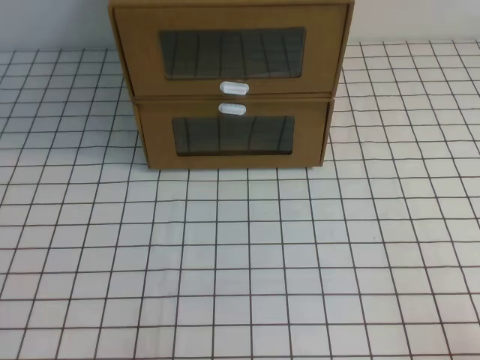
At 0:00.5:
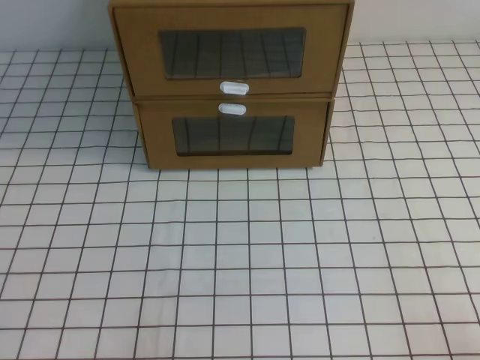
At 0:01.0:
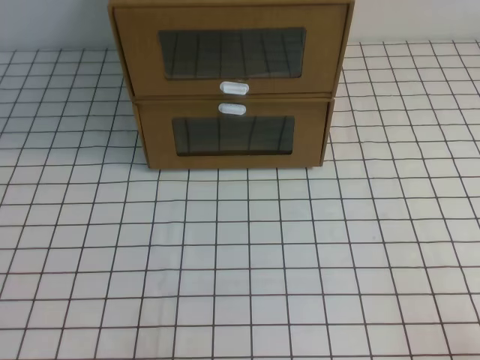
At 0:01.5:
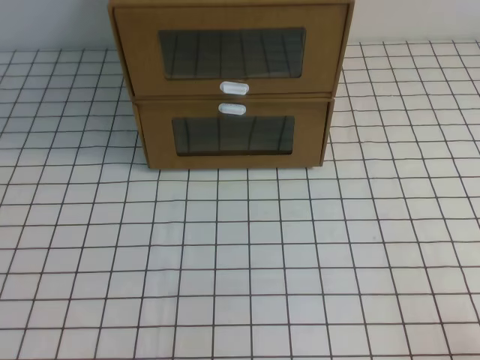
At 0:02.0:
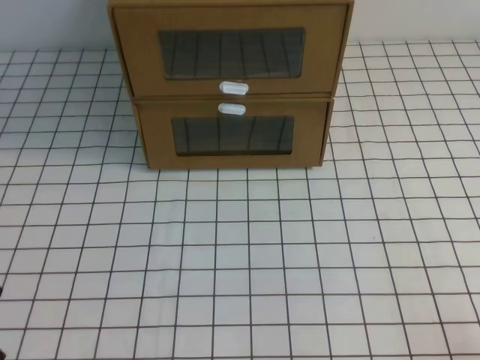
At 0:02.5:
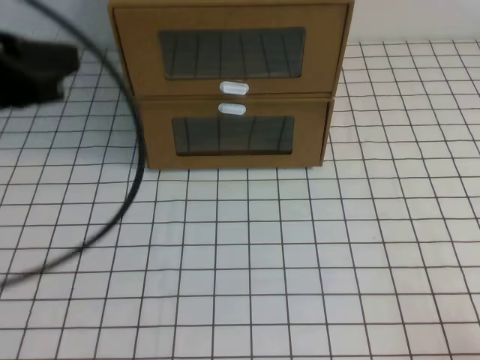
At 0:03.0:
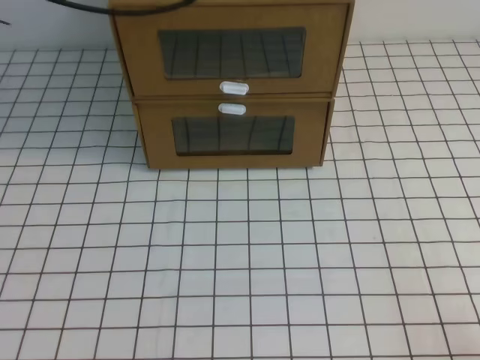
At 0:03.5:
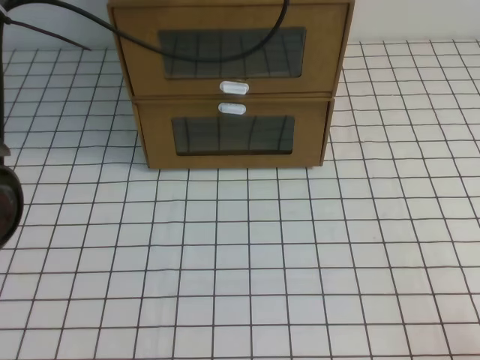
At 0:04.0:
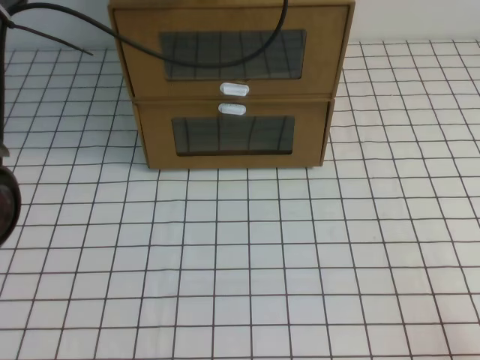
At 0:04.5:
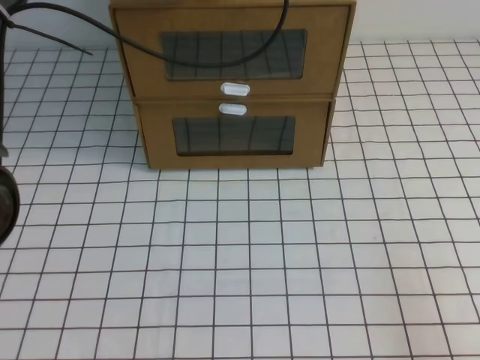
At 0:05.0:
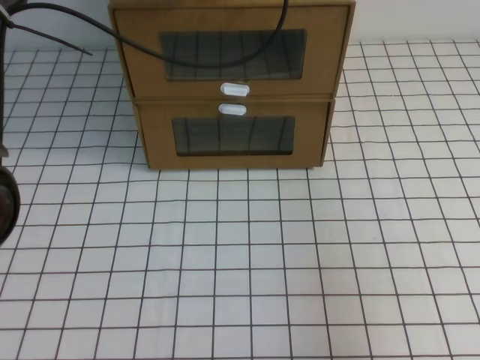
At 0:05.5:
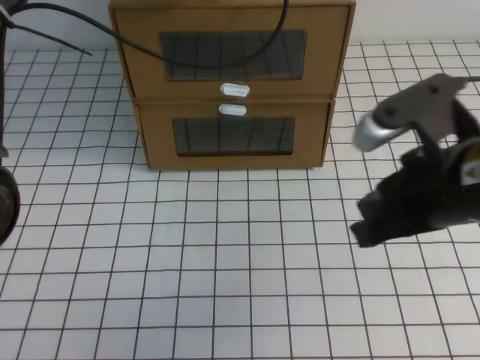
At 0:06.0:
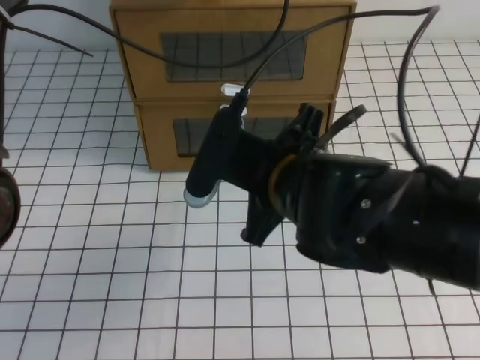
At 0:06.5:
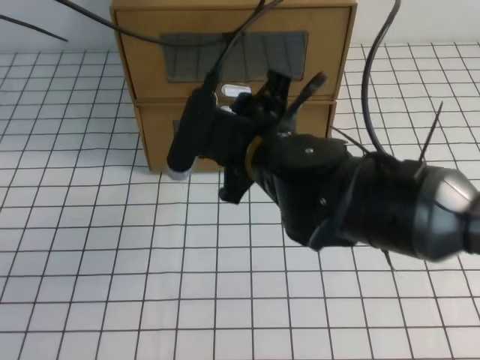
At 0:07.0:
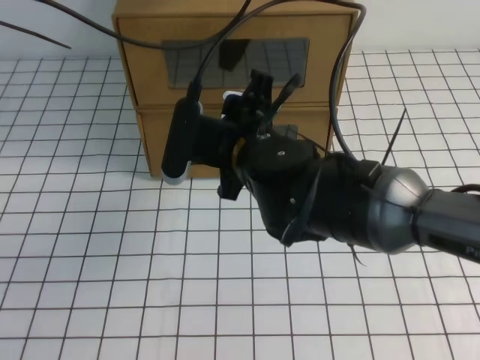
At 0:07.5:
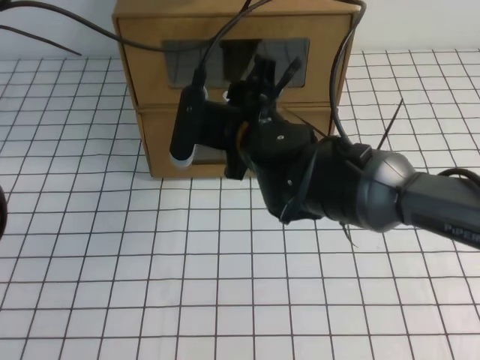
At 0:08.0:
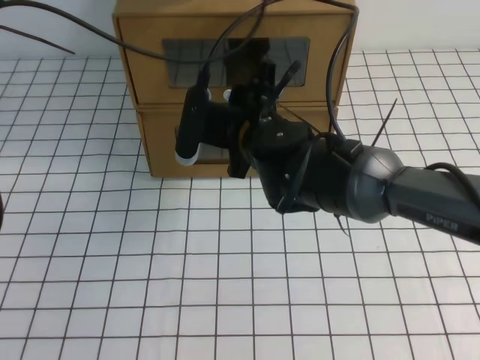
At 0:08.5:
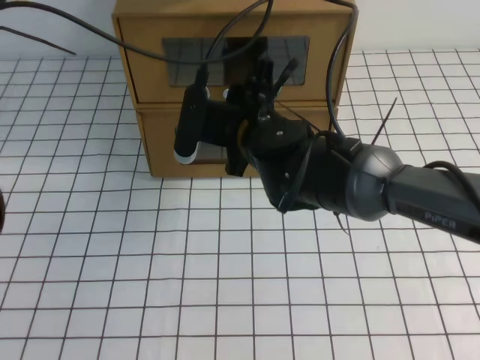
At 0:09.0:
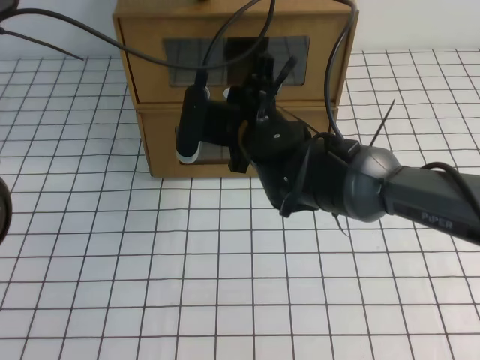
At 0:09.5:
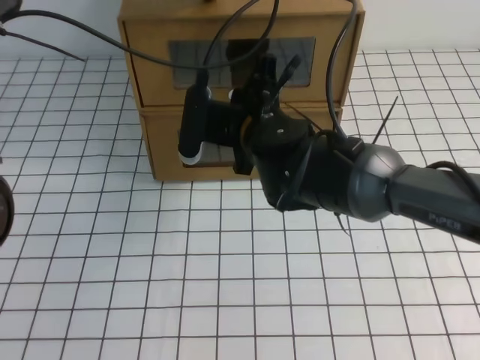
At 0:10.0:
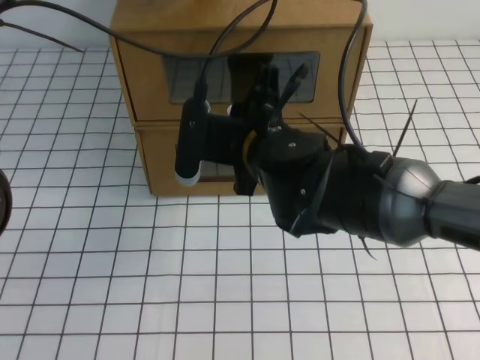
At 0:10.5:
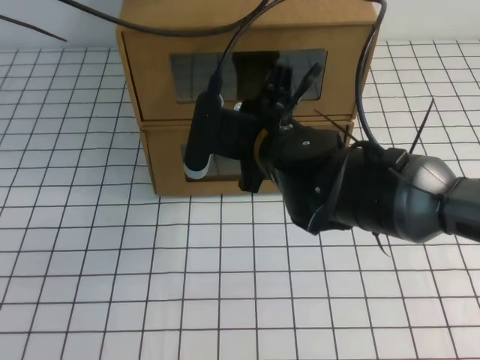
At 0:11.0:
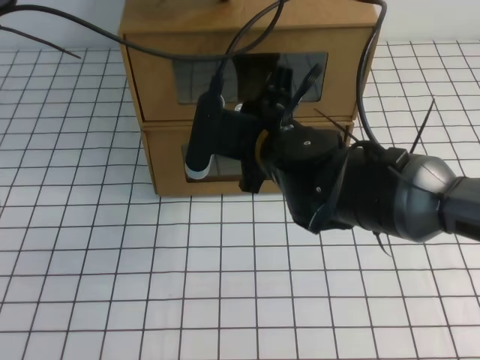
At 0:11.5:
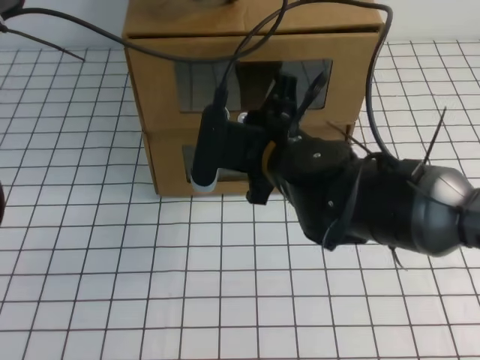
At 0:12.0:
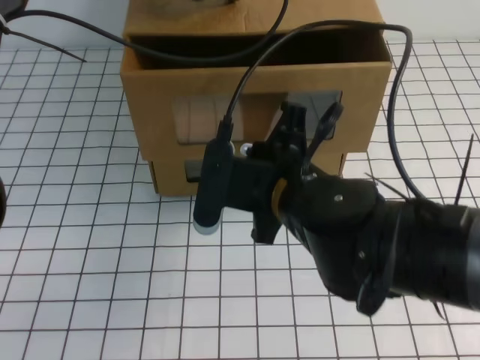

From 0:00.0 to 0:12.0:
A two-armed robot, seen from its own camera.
Task of the whole recording: open the shoebox on the white tablecloth.
From 0:02.0 to 0:04.0: The left gripper heads forward, upward and to the right, covering approximately 50 cm.
From 0:04.0 to 0:06.0: The right gripper is displaced to the left, forward and upward by roughly 35 cm.
From 0:06.0 to 0:08.0: The right gripper shifts roughly 15 cm forward and to the left, and opens its fingers.
From 0:08.0 to 0:10.0: The right gripper closes up.
From 0:10.0 to 0:12.0: The right gripper travels backward by some 5 cm.

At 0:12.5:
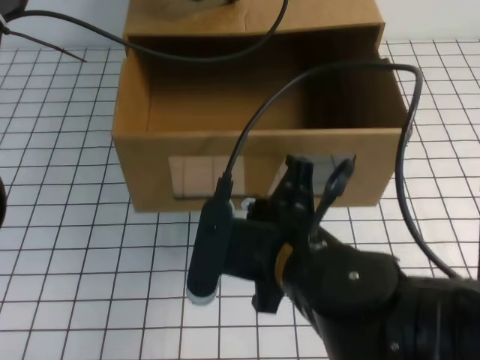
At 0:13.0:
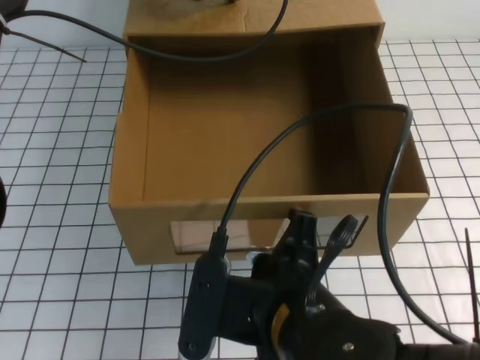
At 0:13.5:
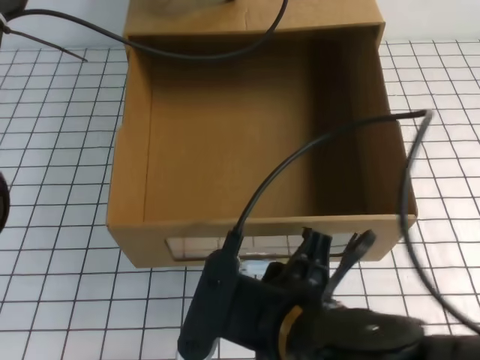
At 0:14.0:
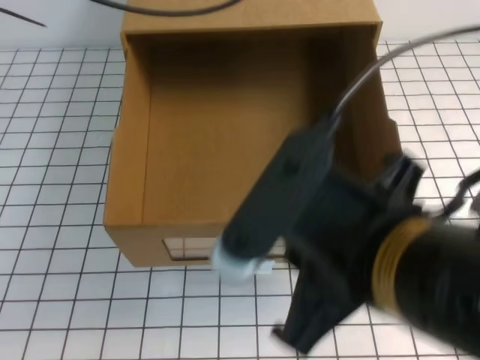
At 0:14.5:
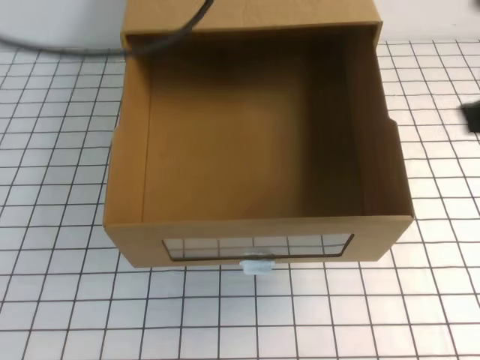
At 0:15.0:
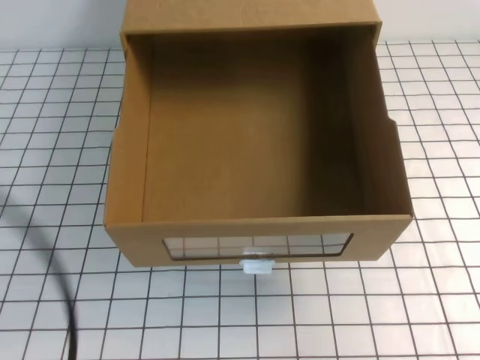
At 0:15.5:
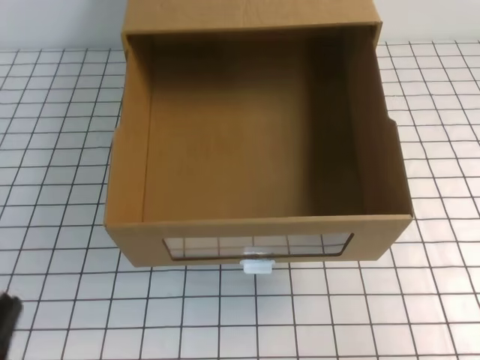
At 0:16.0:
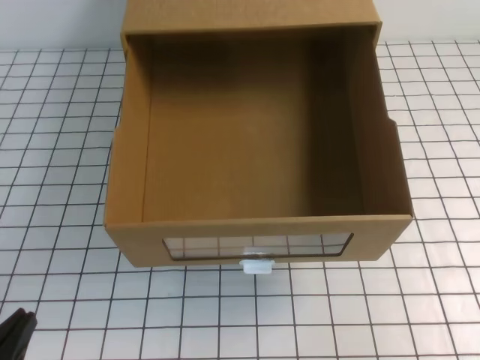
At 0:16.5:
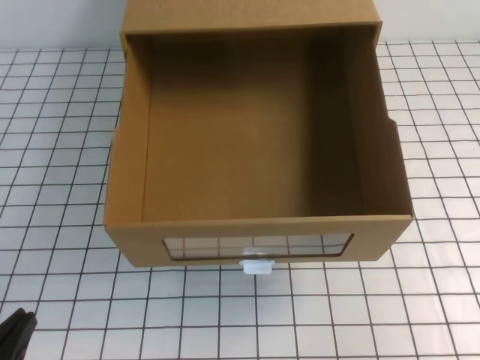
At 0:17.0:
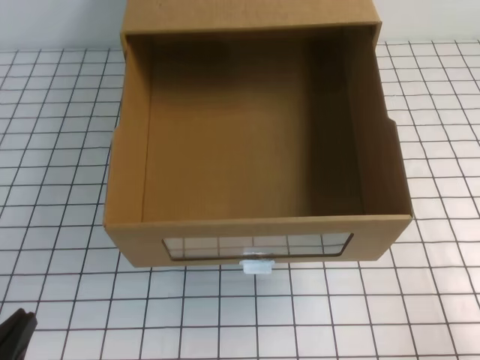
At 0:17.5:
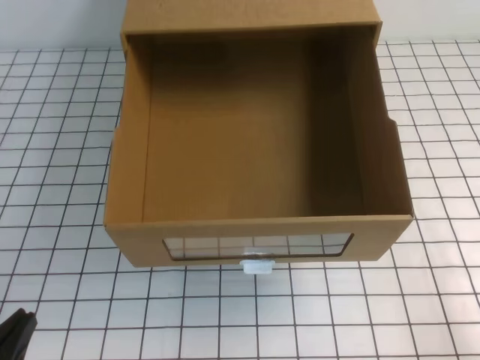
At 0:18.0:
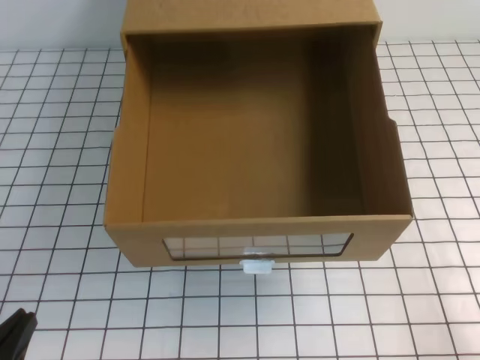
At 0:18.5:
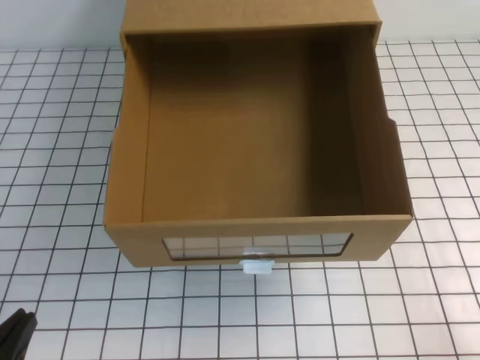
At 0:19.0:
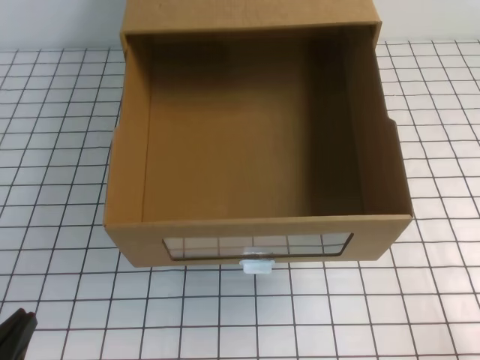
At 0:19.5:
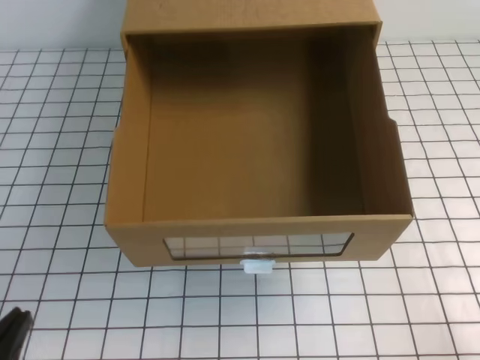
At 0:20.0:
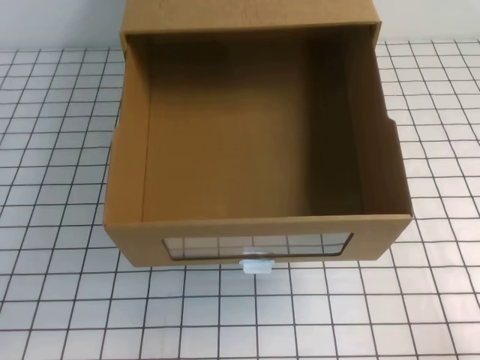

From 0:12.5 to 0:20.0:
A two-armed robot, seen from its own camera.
Task of the whole recording: open the shoebox on the white tablecloth.
Step, from 0:12.5 to 0:20.0: Open the shoe box.
From 0:12.5 to 0:14.5: The right gripper moves upward and to the right, approximately 20 cm, and opens, then closes again. The left gripper is displaced upward, backward and to the left by roughly 20 cm.
From 0:14.5 to 0:16.5: The right gripper shifts approximately 20 cm to the right, downward and backward. The left gripper travels downward and backward by roughly 40 cm.
From 0:16.5 to 0:18.0: The right gripper moves downward, approximately 10 cm.
From 0:18.0 to 0:20.0: The grippers move only a little.

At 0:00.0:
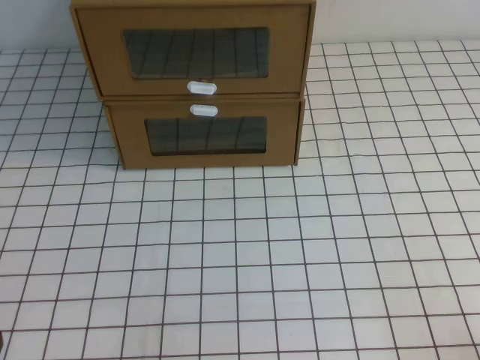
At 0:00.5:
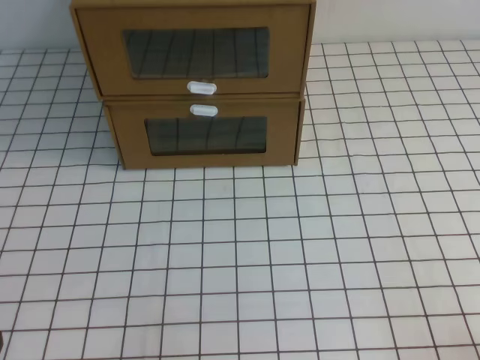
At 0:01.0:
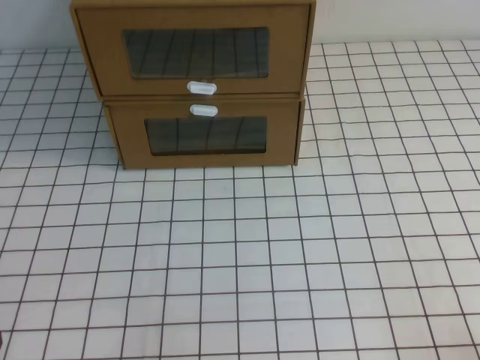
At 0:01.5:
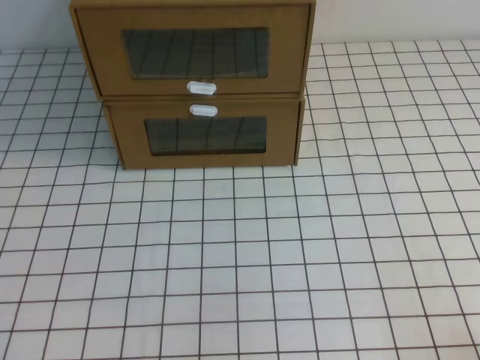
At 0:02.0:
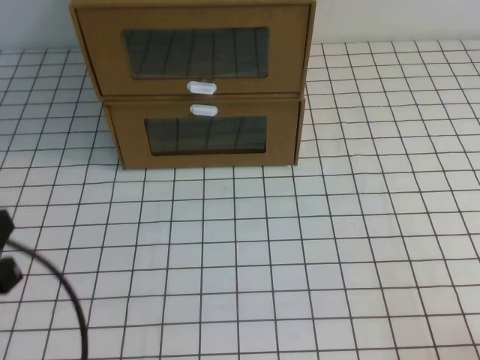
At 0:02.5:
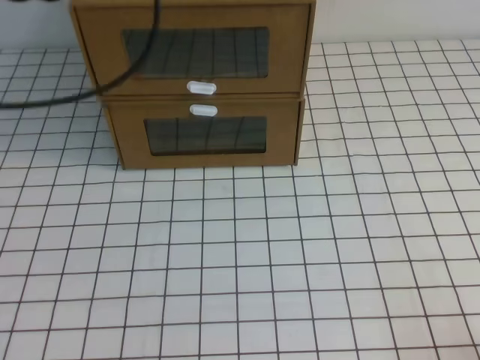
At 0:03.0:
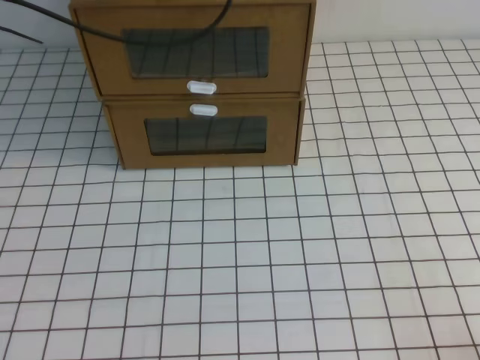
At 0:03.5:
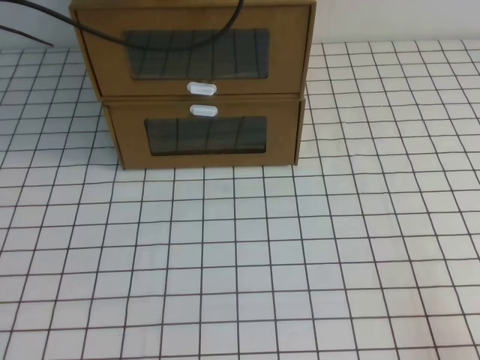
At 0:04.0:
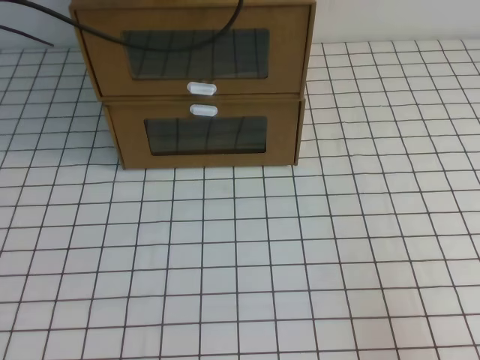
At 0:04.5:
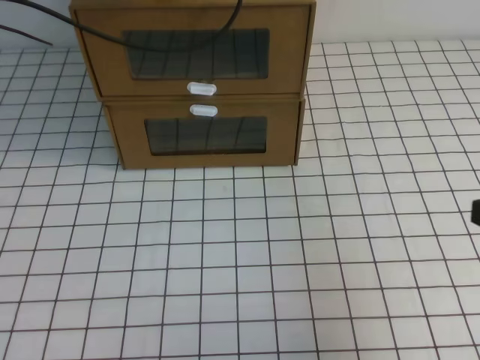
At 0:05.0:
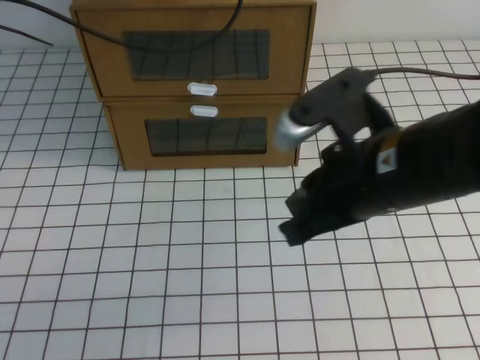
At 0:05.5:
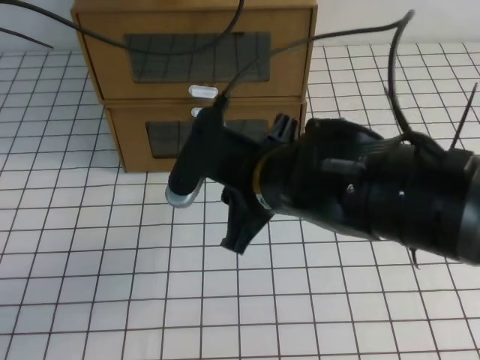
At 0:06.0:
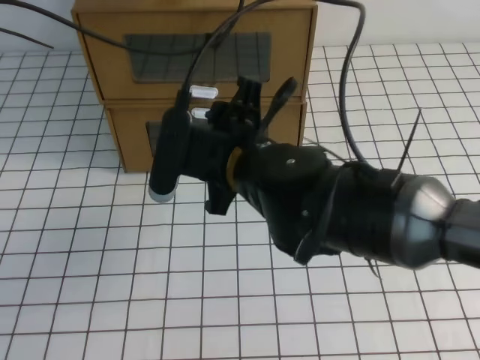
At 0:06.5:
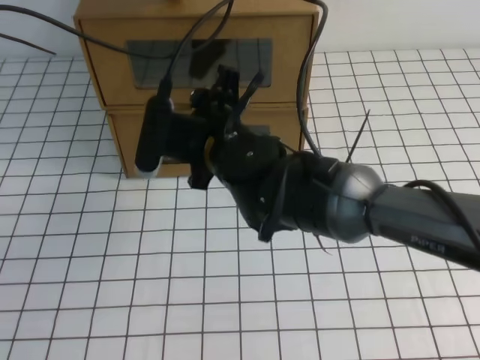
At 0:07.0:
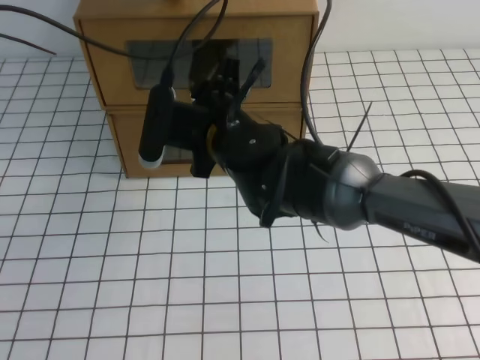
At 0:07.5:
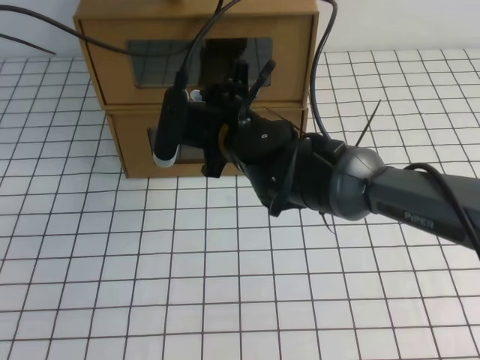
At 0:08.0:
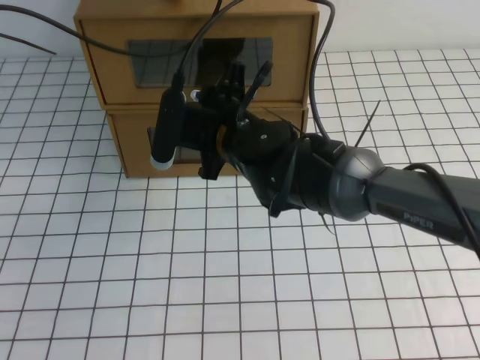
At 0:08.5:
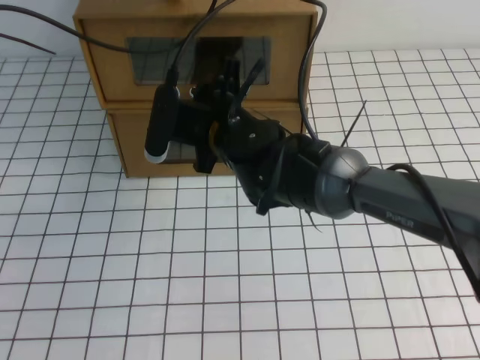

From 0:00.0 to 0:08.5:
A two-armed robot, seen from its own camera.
Task of the whole recording: open the shoebox on the white tablecloth.
From 0:00.0 to 0:02.0: The left gripper is displaced upward by about 15 cm.
From 0:02.0 to 0:04.0: The left gripper shifts approximately 35 cm forward.
From 0:04.0 to 0:06.5: The right gripper shifts about 40 cm to the left and forward, and opens its fingers.
From 0:06.5 to 0:08.5: The right gripper closes up.
